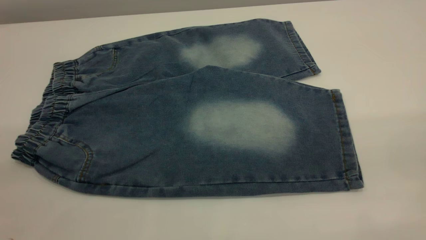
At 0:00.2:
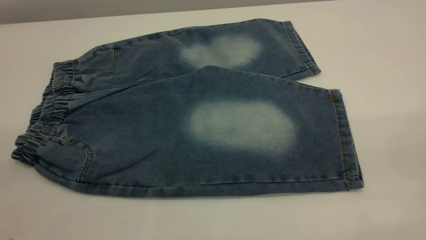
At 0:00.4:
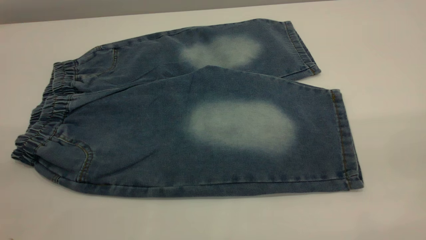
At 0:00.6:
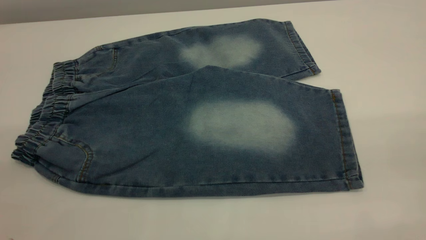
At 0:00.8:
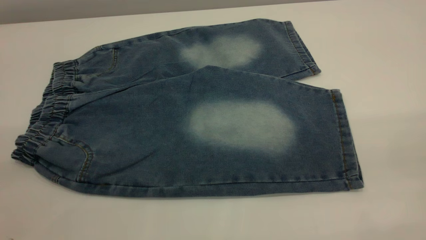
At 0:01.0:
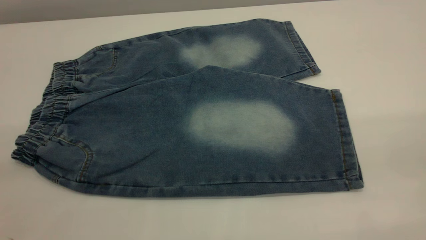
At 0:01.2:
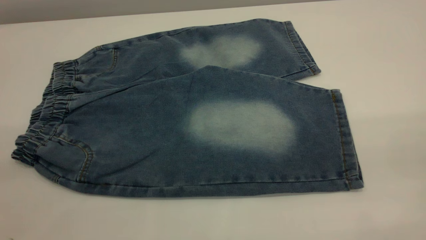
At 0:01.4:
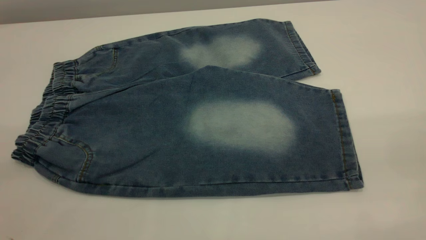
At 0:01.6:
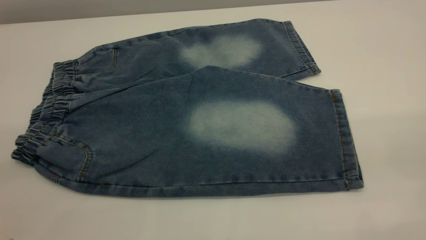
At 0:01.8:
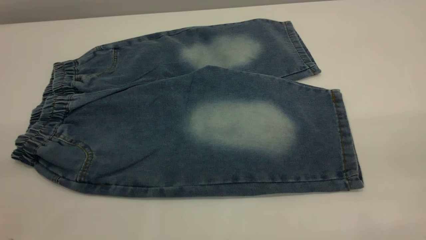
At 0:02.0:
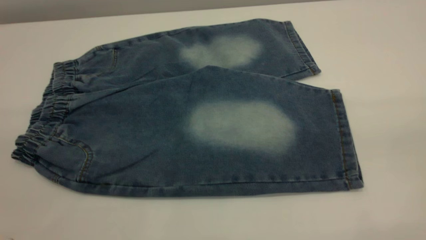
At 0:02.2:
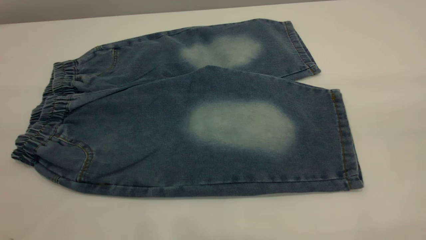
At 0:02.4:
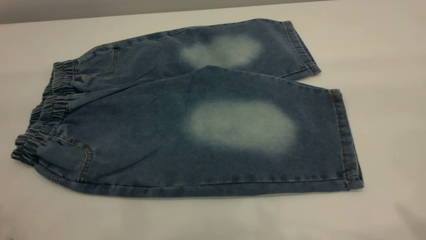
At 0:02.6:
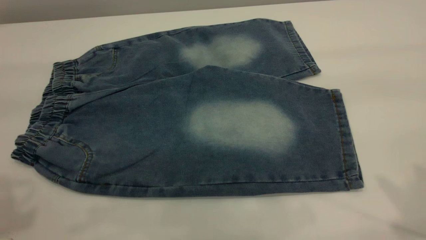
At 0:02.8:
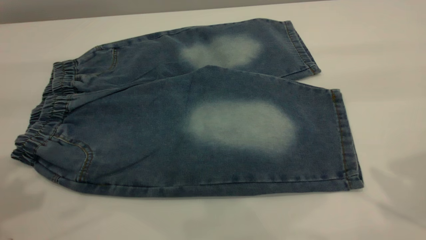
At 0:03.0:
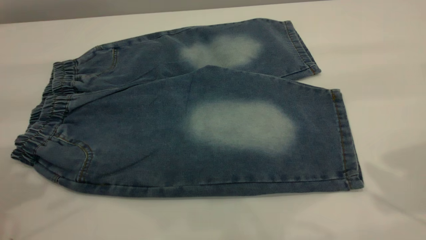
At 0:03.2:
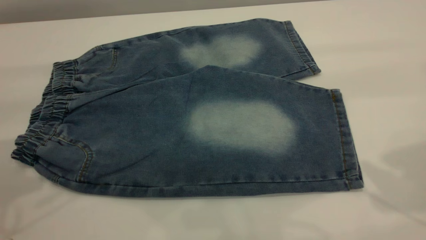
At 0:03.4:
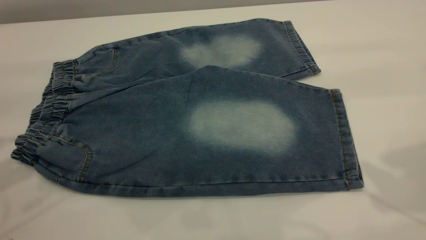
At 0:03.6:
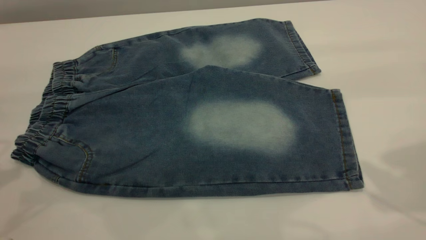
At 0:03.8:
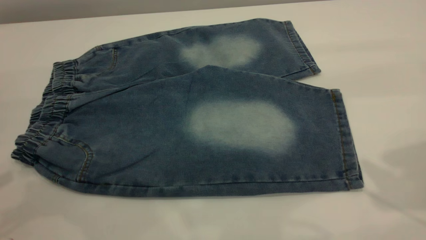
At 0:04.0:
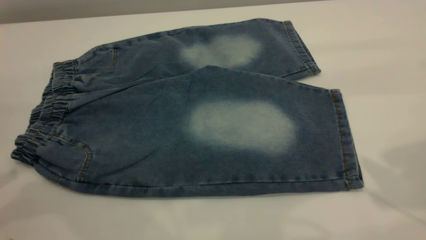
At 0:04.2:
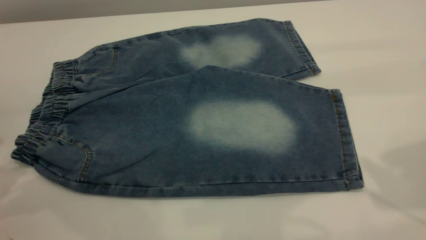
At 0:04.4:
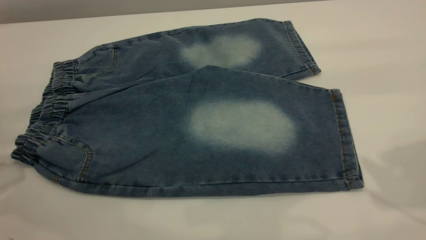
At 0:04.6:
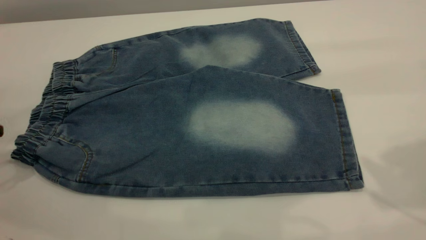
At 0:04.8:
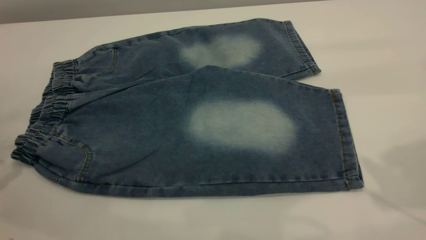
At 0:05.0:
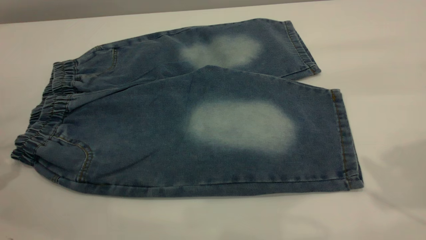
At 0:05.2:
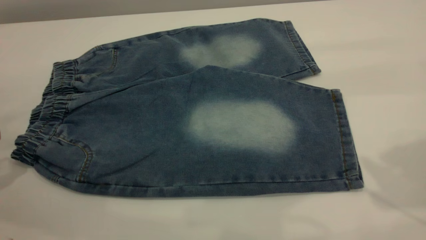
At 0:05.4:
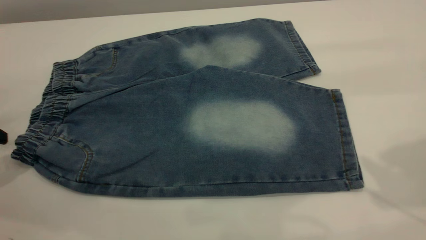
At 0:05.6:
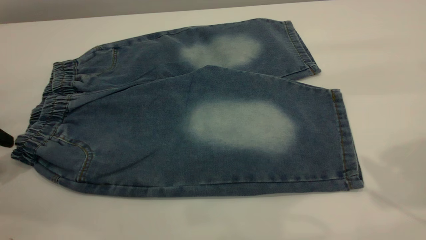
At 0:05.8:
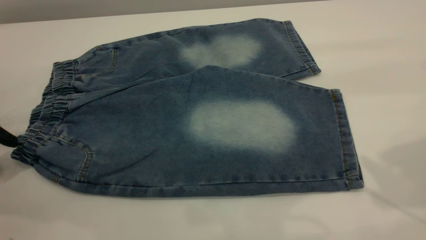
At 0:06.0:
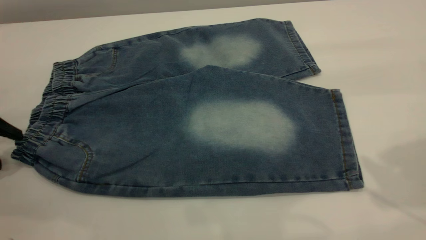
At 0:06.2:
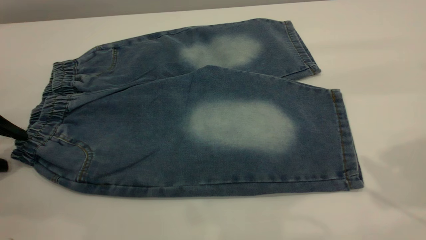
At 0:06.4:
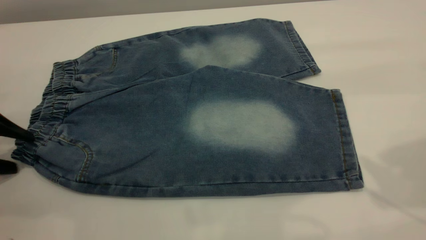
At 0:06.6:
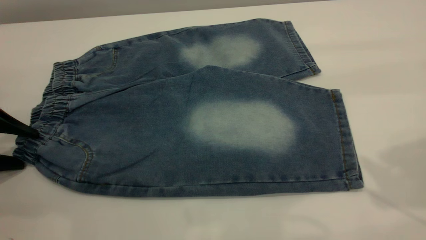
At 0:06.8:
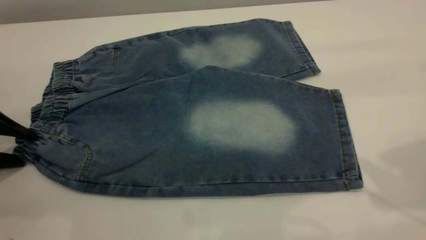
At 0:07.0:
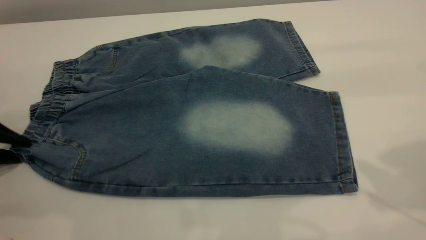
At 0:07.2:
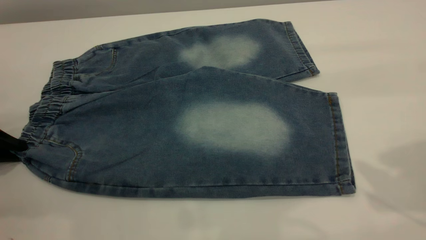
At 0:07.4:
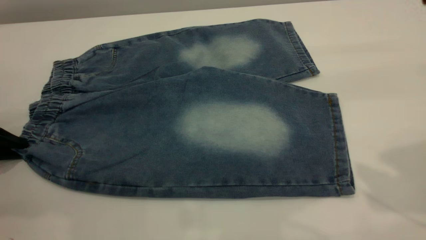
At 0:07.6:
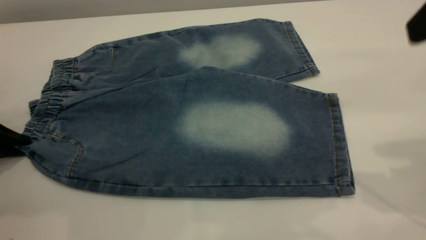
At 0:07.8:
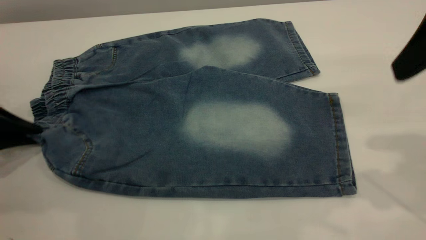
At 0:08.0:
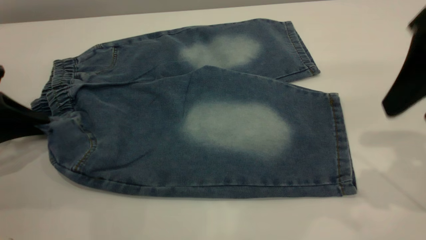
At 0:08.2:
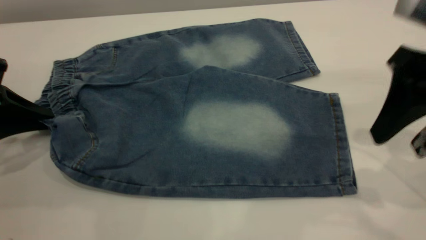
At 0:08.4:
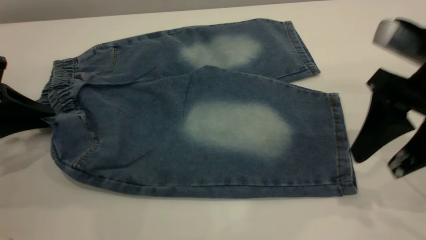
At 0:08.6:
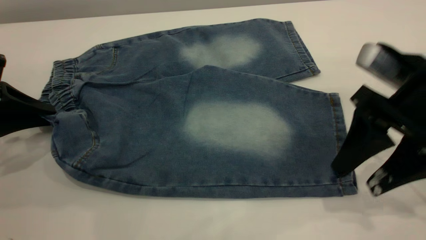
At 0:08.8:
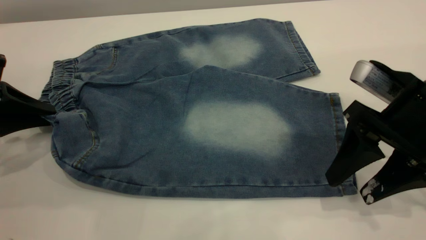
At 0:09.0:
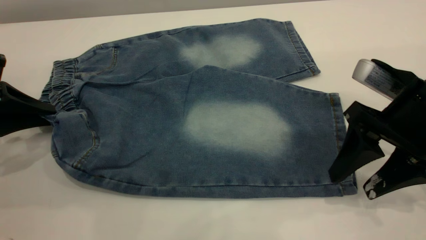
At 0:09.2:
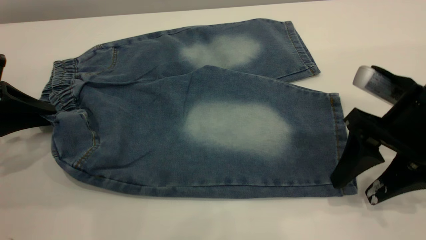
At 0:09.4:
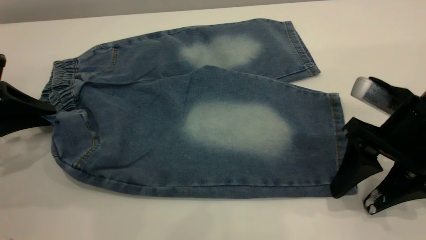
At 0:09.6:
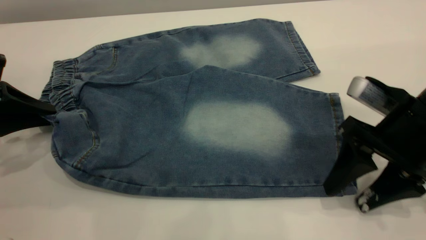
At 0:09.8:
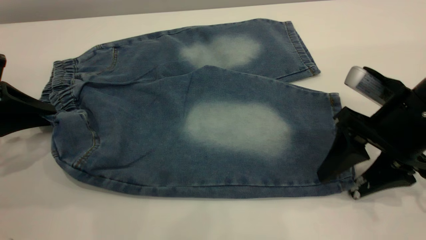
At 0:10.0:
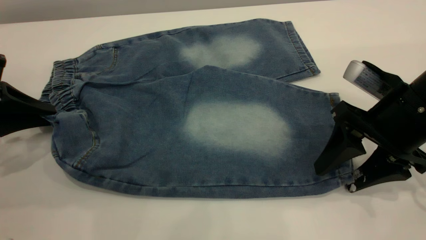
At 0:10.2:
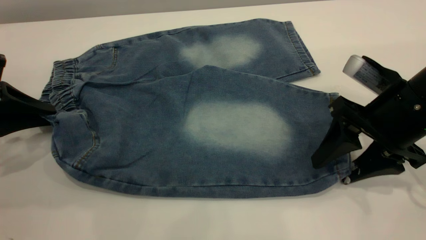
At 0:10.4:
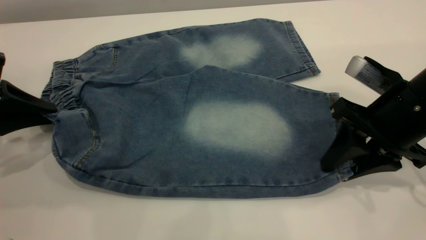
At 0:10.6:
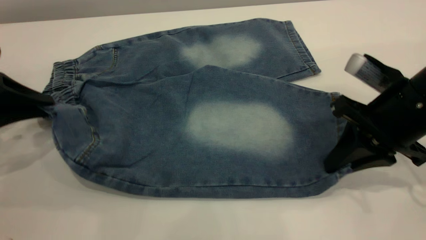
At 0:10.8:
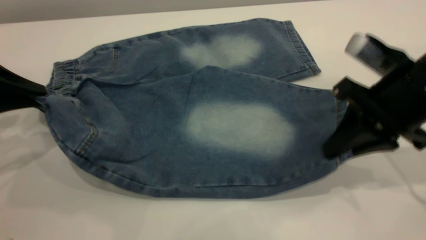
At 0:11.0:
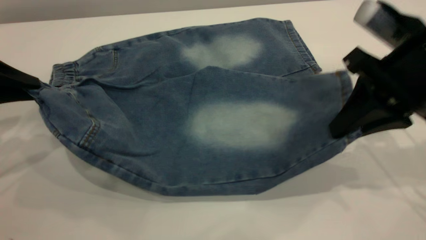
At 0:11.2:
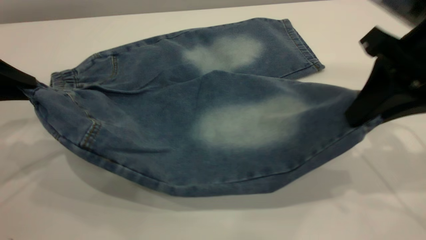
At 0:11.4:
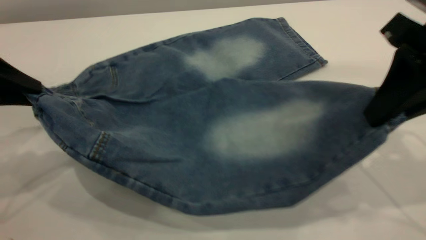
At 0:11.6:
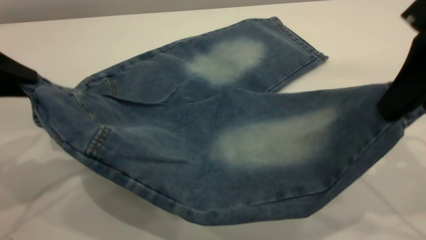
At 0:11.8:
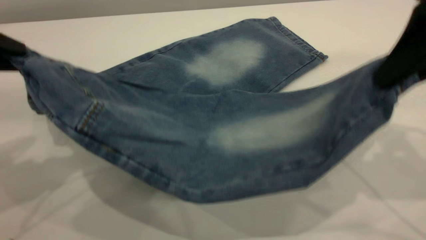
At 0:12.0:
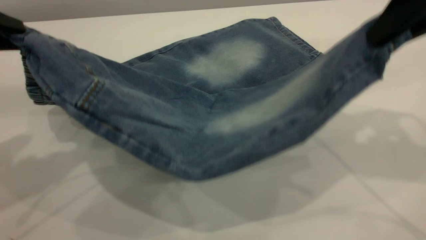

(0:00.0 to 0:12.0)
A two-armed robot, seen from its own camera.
0:00.0 - 0:01.6: The two grippers keep their place.
0:04.4 - 0:06.0: The left gripper is displaced downward by roughly 5 cm, and opens up.
0:06.0 - 0:07.6: The left gripper closes.
0:07.6 - 0:09.0: The right gripper moves downward, approximately 15 cm.
0:09.0 - 0:10.4: The right gripper closes up.
0:10.4 - 0:12.0: The grippers both shift upward by approximately 15 cm.

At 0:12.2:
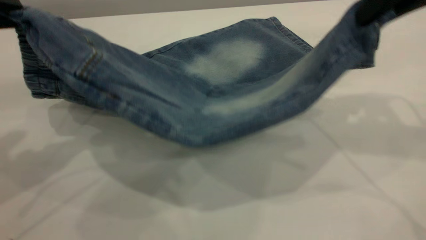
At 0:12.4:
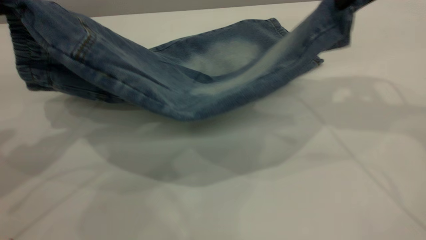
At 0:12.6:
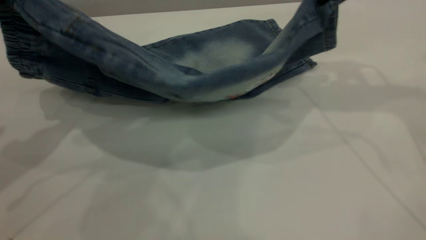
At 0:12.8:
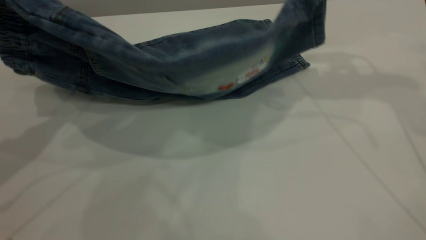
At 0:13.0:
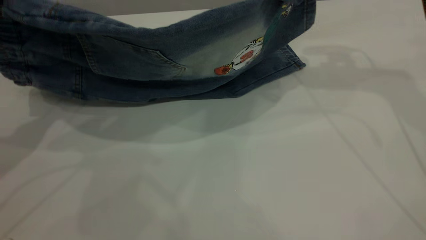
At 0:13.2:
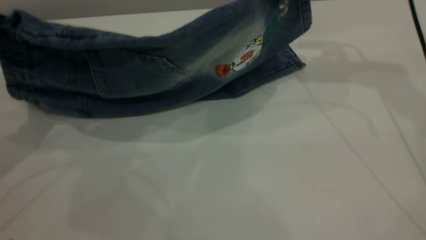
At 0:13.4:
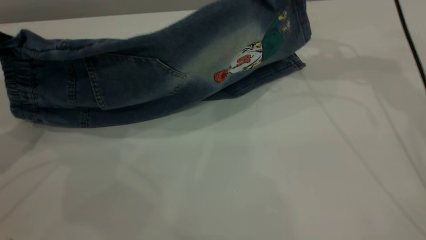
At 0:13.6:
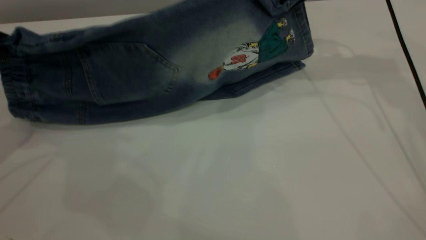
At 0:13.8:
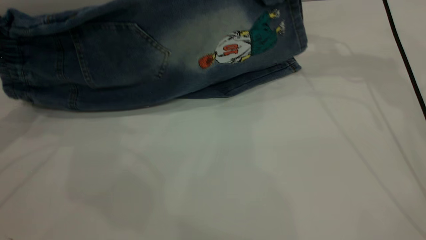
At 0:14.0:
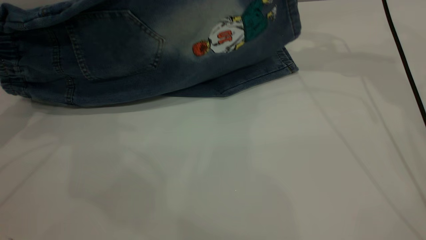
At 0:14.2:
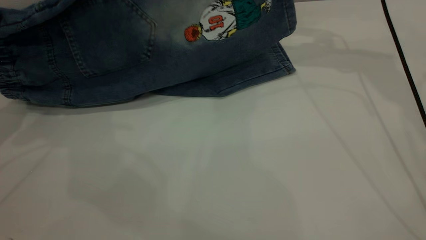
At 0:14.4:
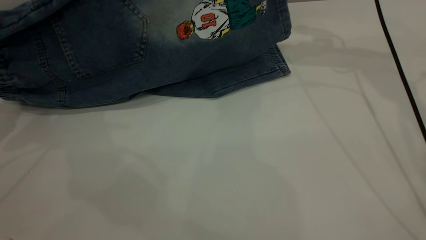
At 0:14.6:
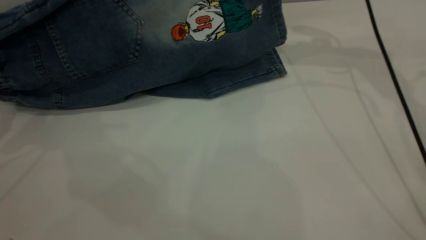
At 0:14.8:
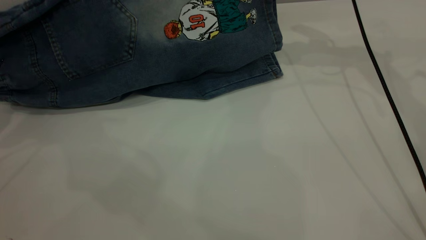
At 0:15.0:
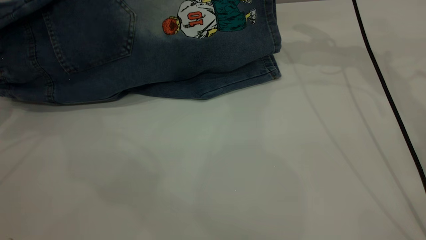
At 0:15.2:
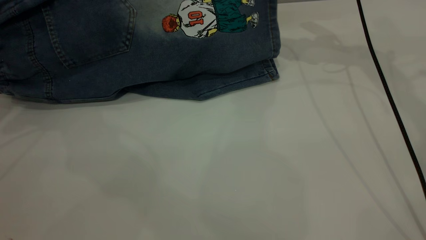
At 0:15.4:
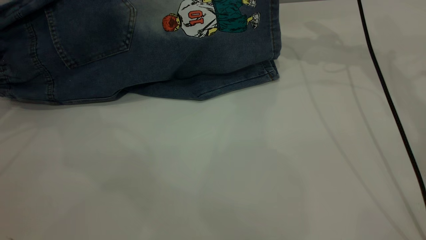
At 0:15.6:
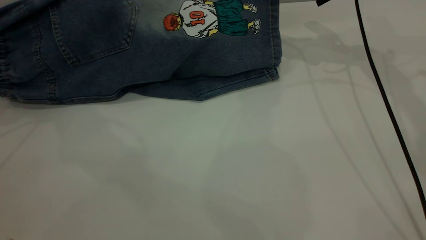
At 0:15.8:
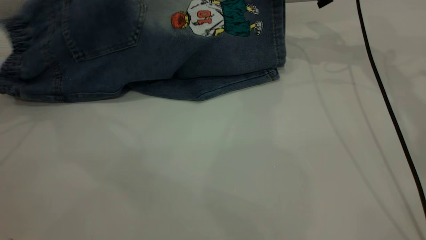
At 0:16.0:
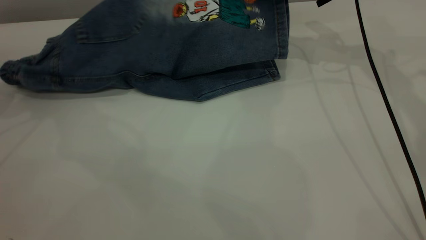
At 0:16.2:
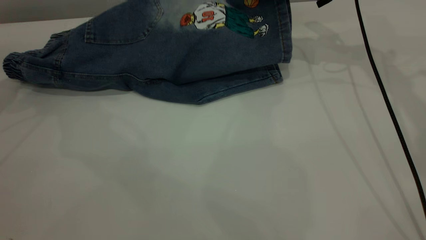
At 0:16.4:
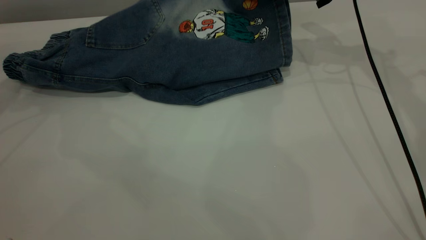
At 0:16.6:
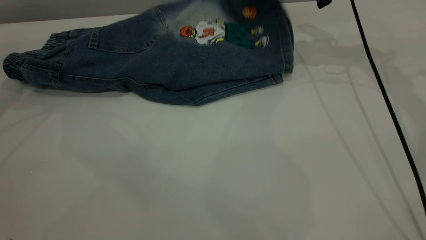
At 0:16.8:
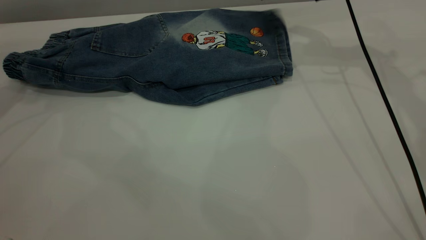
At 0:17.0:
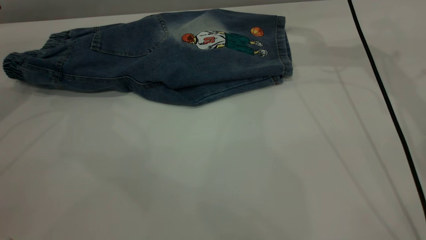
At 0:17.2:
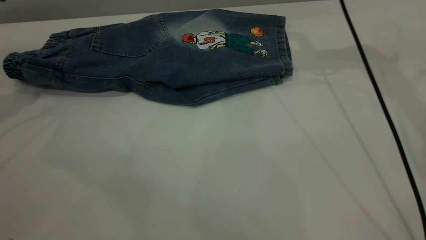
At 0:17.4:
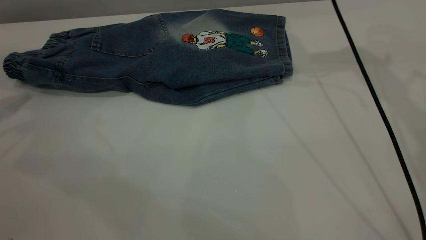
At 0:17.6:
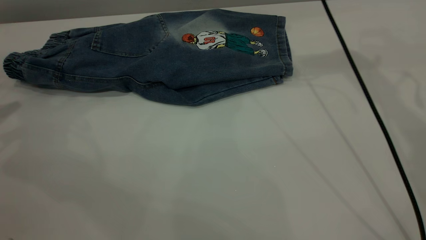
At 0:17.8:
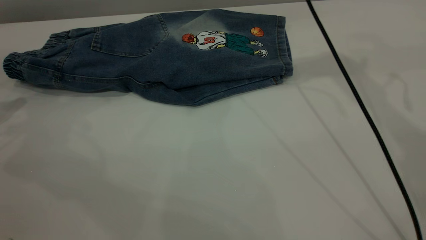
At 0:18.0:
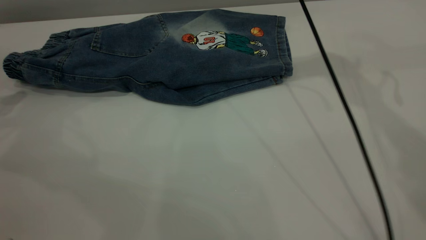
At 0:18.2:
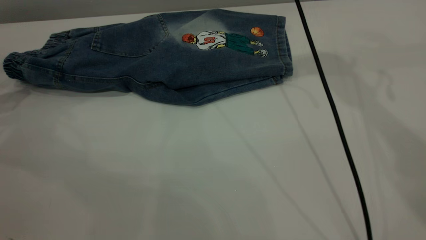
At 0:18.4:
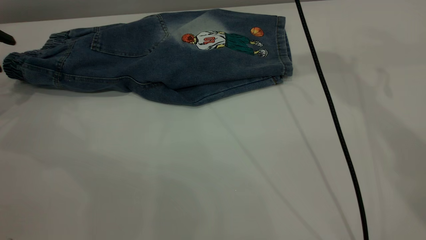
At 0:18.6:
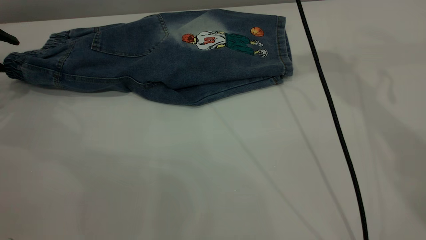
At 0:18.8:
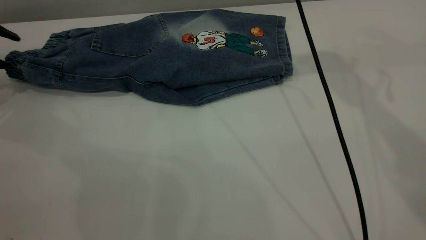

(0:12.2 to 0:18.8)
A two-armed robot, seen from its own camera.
Step, 0:12.2 - 0:16.8: Fold the bottom of the pants upward.
0:12.2 - 0:13.8: The left gripper moves forward and to the left, roughly 10 cm, while the right gripper heads forward, covering approximately 15 cm.
0:13.8 - 0:15.4: The right gripper moves roughly 5 cm. Meanwhile the left gripper ends up some 5 cm from where it was.
0:15.4 - 0:17.2: The left gripper opens up, while the right gripper goes approximately 5 cm upward, and opens.
0:17.2 - 0:18.8: The right gripper goes some 10 cm to the left and upward.
